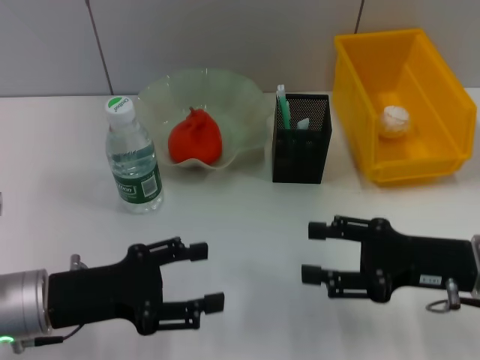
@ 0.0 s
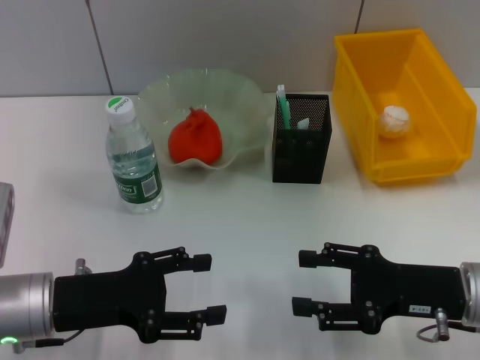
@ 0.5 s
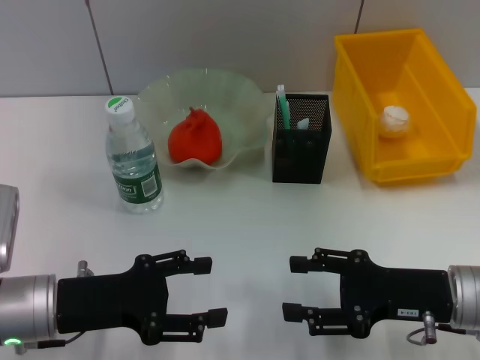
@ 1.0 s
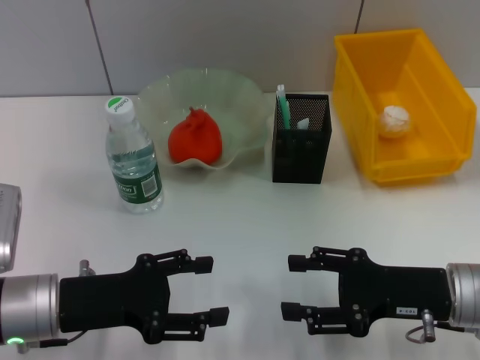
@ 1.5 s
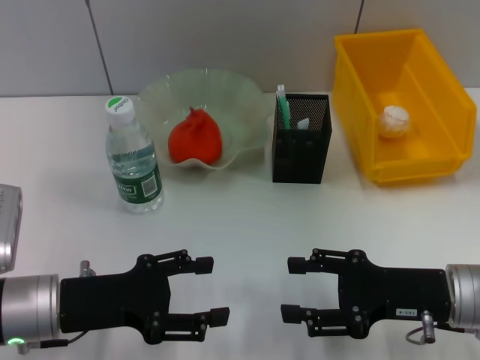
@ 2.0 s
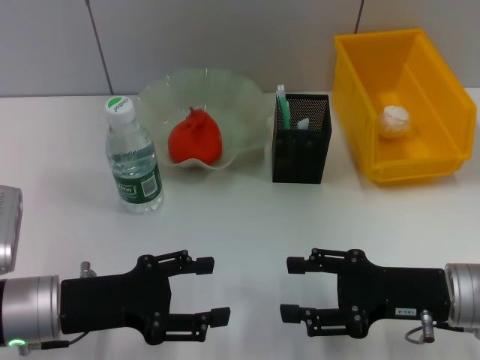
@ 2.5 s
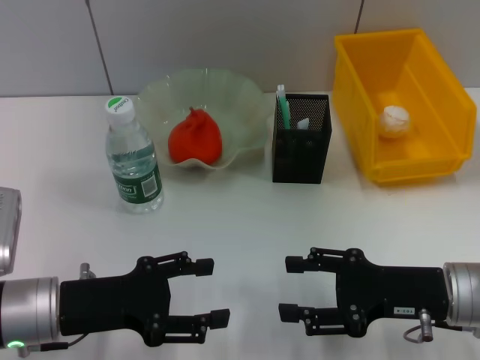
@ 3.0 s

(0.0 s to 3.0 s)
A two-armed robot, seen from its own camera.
0.0 s - 1.5 s: The grippers make only small movements.
1.5 s - 3.0 s: Neither gripper changes place.

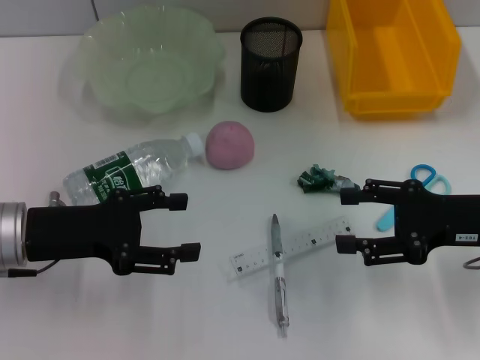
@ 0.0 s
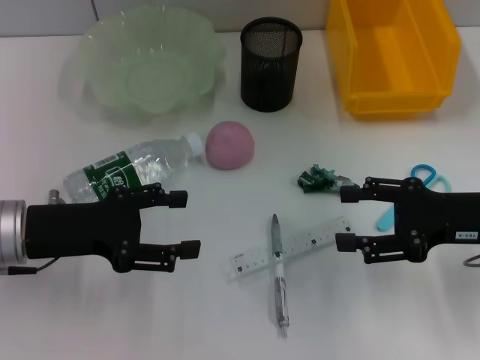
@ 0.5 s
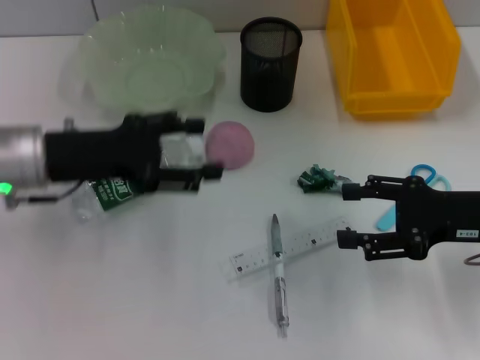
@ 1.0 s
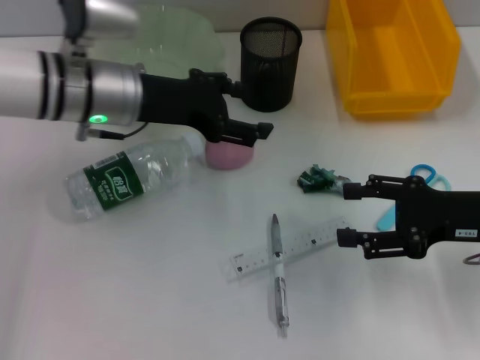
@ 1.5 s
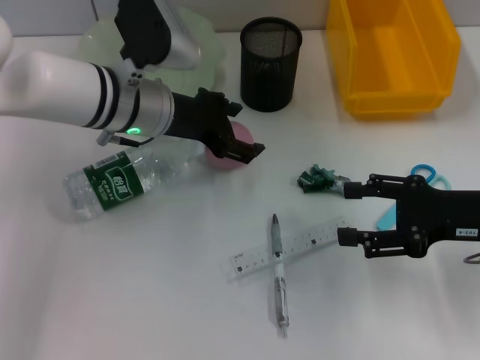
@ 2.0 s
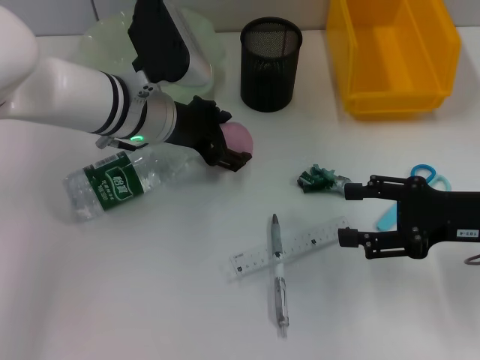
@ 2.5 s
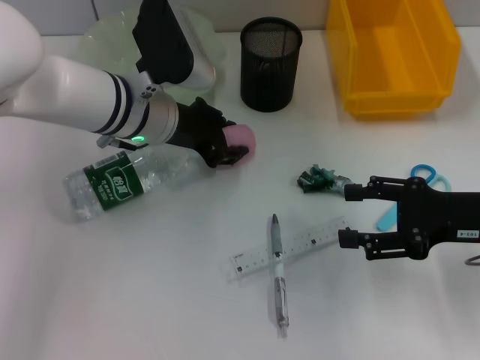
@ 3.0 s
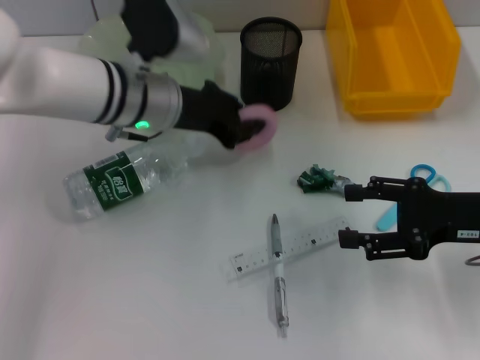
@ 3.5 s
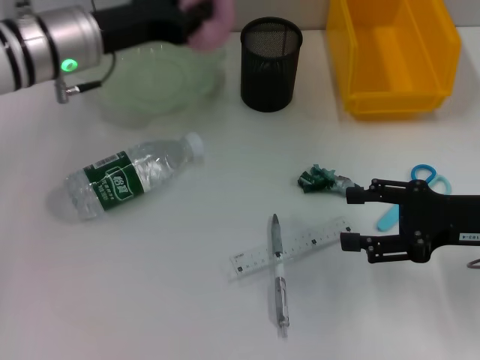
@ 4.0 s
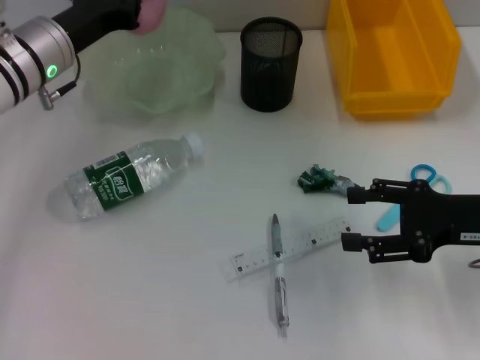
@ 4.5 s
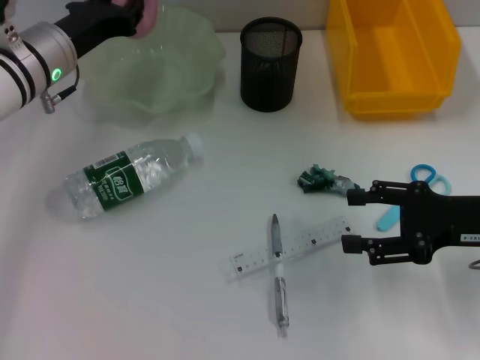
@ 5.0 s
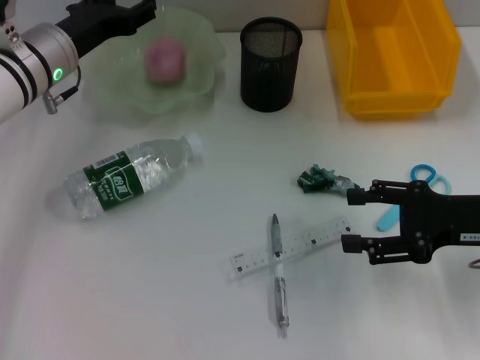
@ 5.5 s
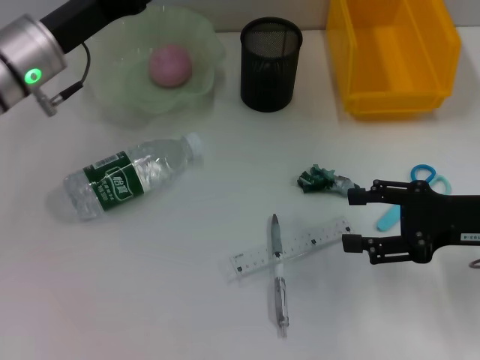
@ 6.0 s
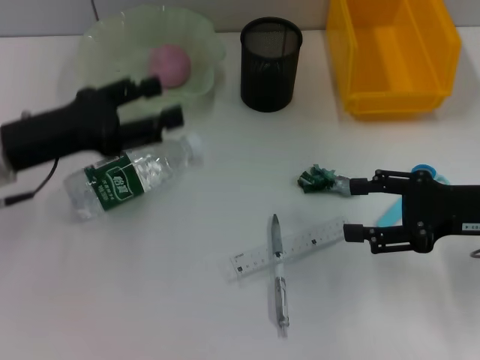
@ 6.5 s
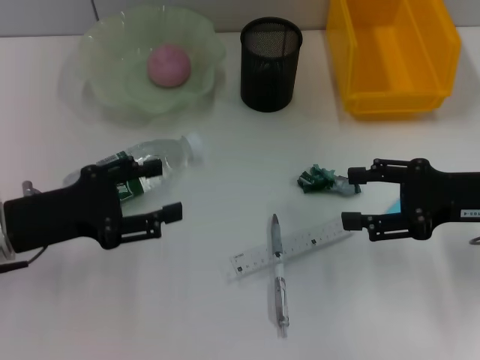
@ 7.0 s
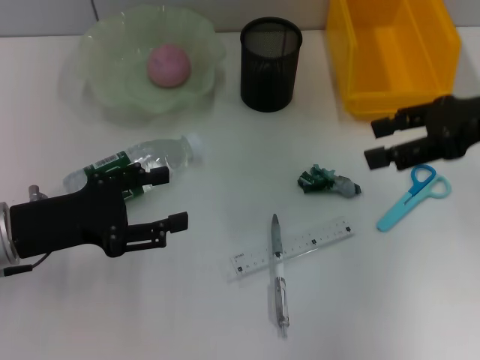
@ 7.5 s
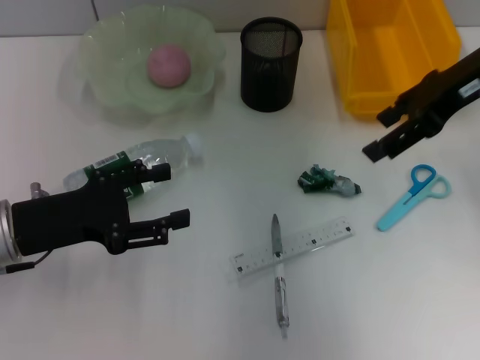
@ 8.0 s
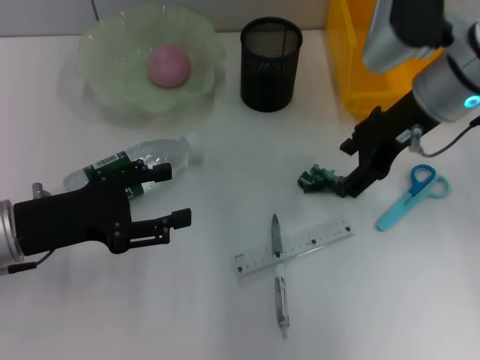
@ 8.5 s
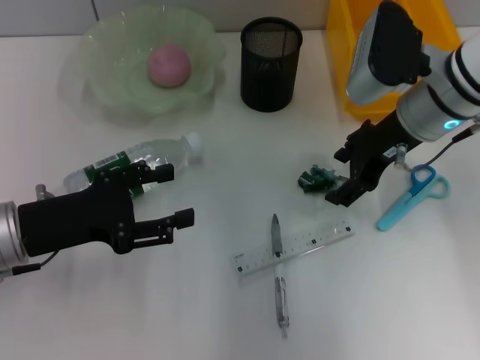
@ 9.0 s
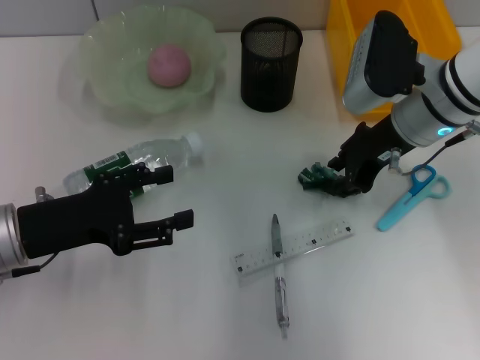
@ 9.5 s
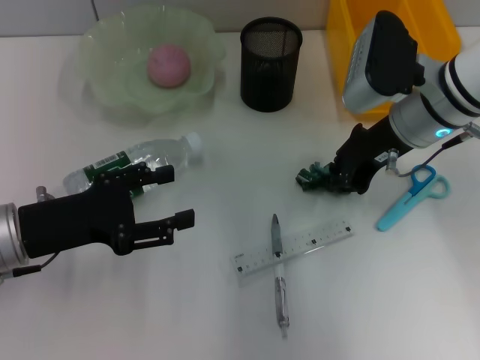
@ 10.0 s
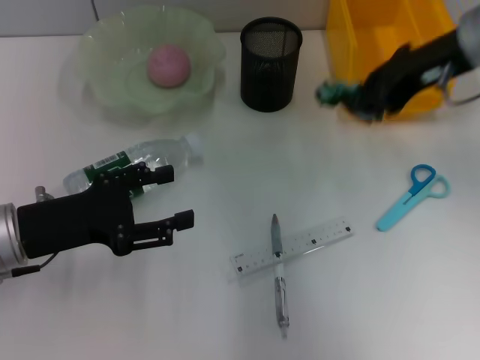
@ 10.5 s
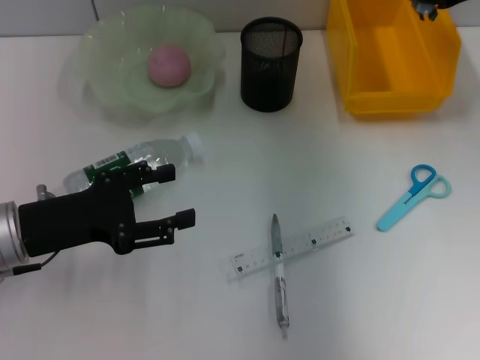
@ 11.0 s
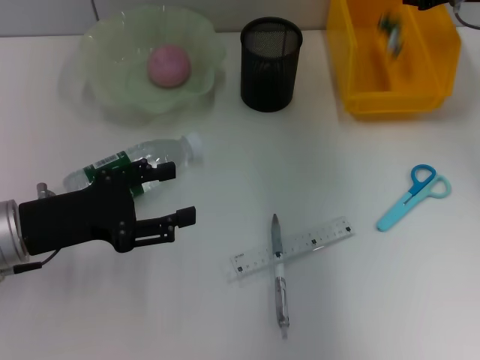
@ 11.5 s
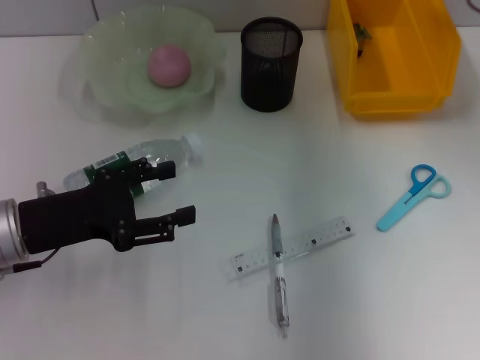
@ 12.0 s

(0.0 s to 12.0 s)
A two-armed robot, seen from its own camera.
Step, 0.0 s - 3.0 s: Grab the peach with the left hand.
Step, 3.5 s - 5.5 s: Place the peach into the fruit bowl with the left hand.
Step, 6.0 s - 9.5 s: Grab the plastic with the right hand.
Step, 10.0 s - 11.5 s: Place the plastic into the trash can with the right hand.
0.0 s - 2.0 s: The left gripper is displaced to the right and forward by about 20 cm.
2.0 s - 4.0 s: The left gripper goes roughly 5 cm to the left, and closes its fingers.
4.0 s - 6.0 s: The left gripper opens up.
6.0 s - 8.0 s: The left gripper goes roughly 15 cm backward and downward; the right gripper goes some 20 cm upward and forward.
8.0 s - 10.0 s: The right gripper moves downward and to the left, about 10 cm, and closes its fingers.
10.0 s - 12.0 s: The right gripper is displaced to the right, upward and forward by approximately 15 cm, and opens up.

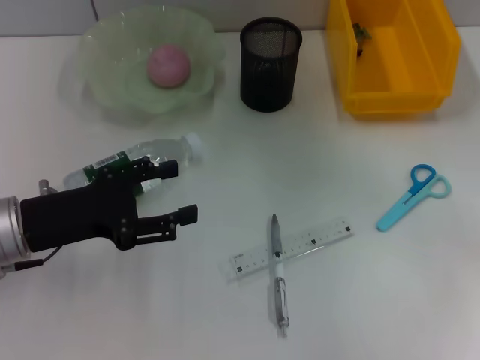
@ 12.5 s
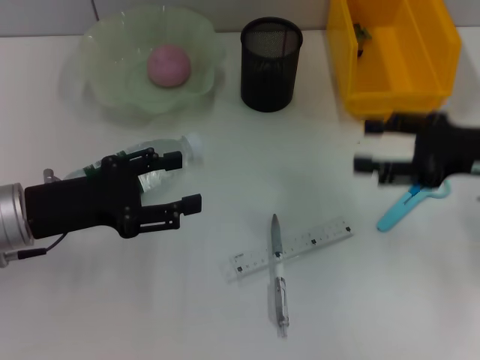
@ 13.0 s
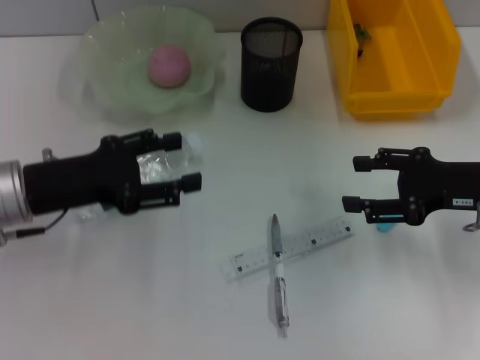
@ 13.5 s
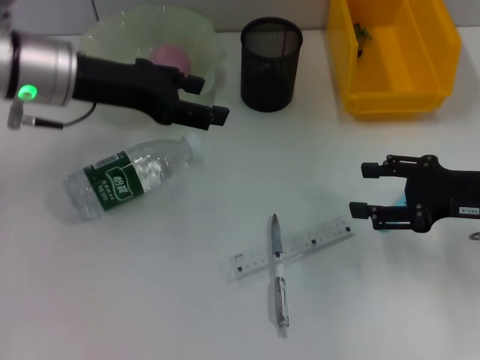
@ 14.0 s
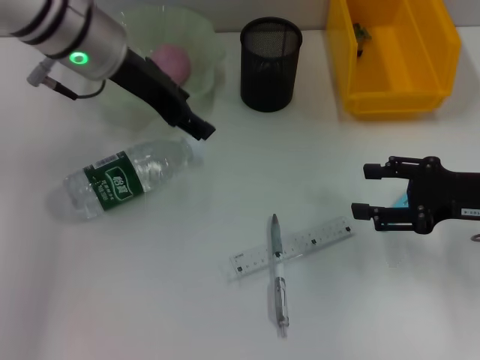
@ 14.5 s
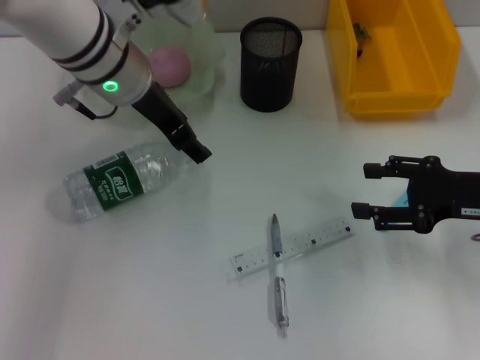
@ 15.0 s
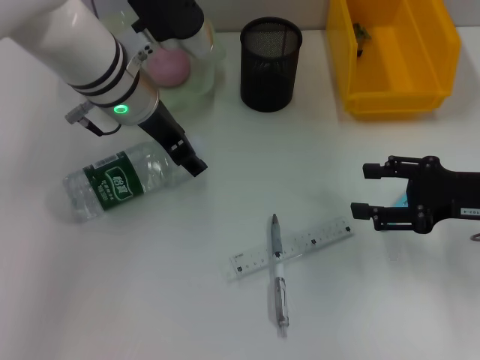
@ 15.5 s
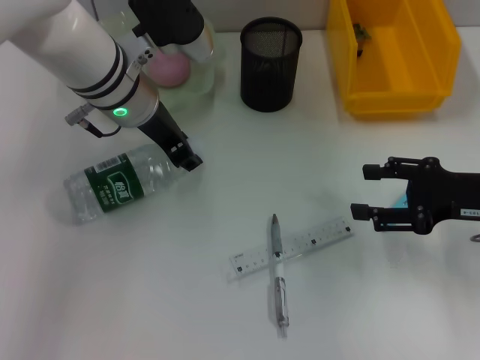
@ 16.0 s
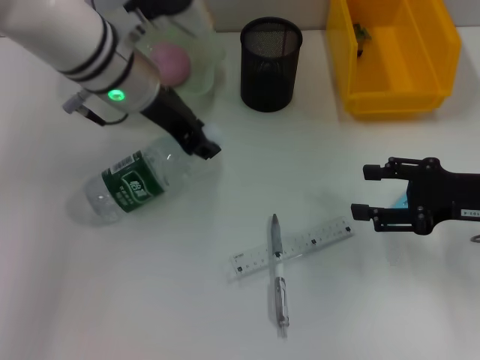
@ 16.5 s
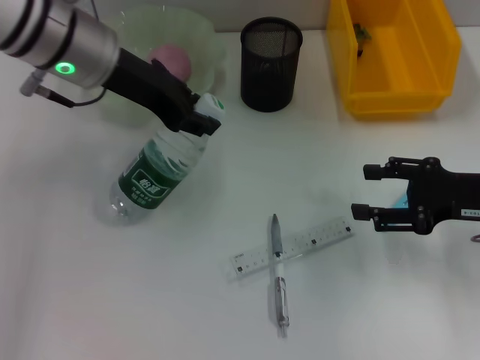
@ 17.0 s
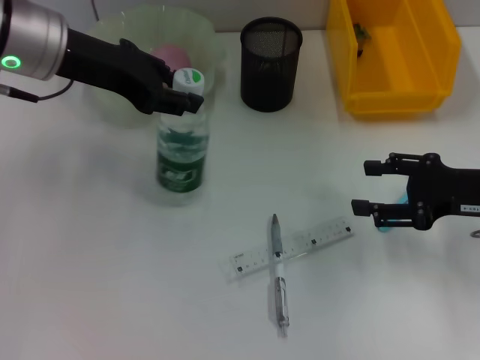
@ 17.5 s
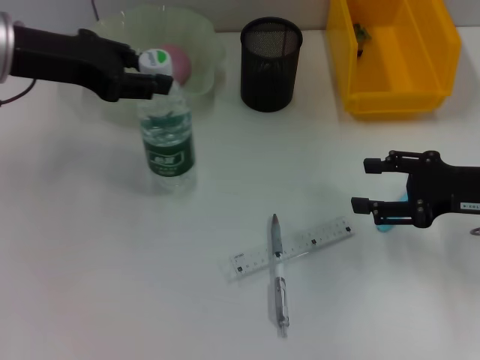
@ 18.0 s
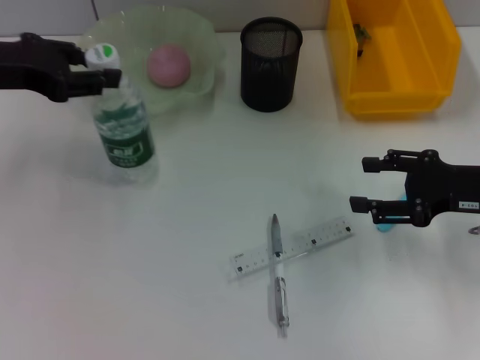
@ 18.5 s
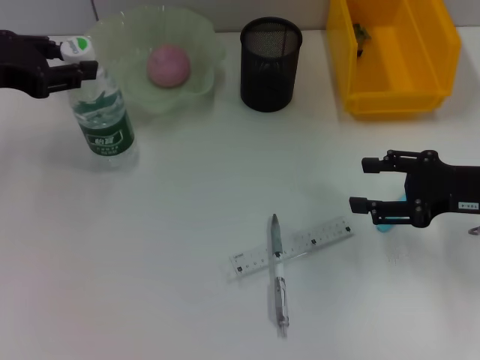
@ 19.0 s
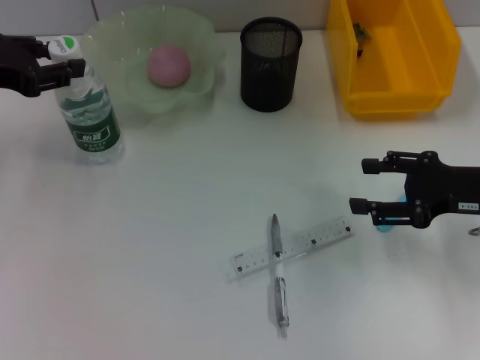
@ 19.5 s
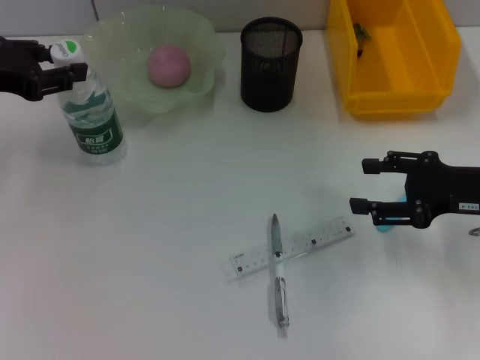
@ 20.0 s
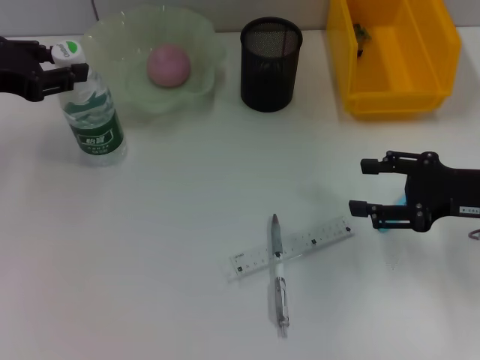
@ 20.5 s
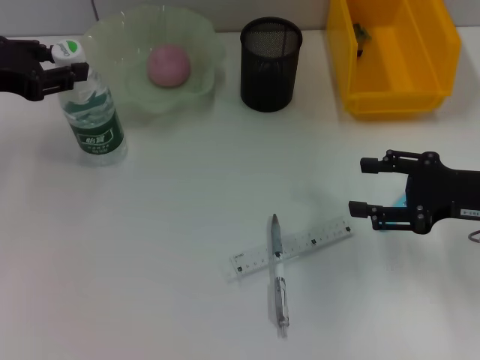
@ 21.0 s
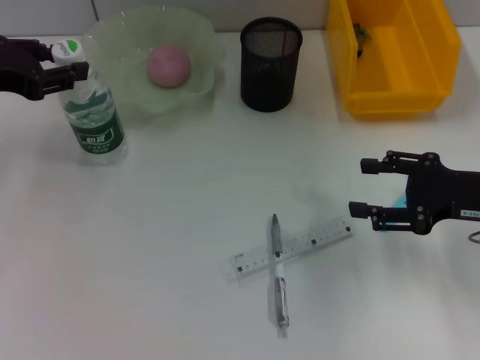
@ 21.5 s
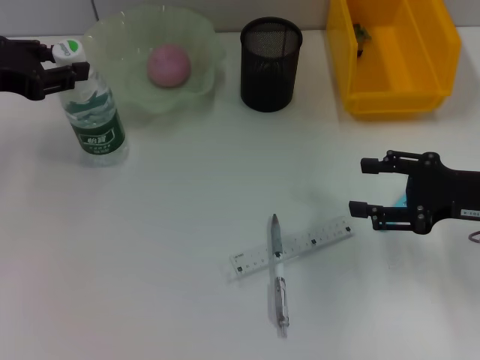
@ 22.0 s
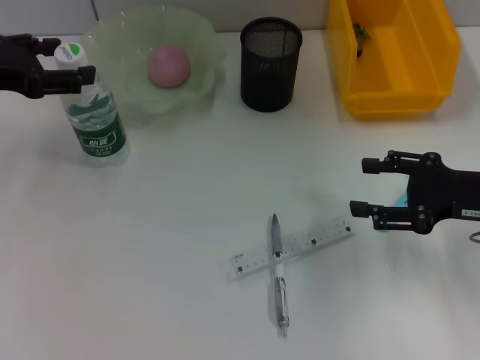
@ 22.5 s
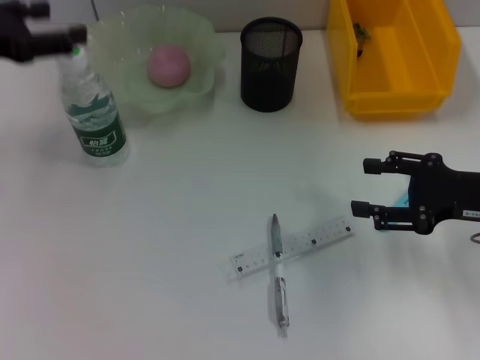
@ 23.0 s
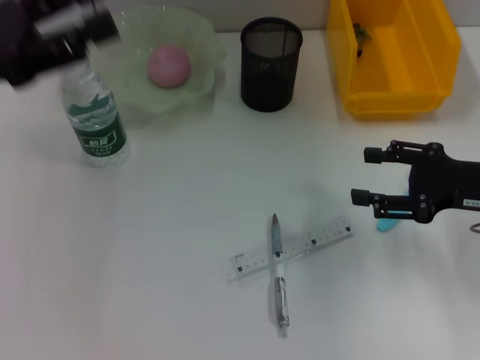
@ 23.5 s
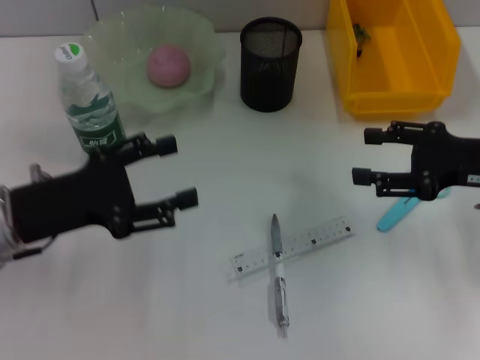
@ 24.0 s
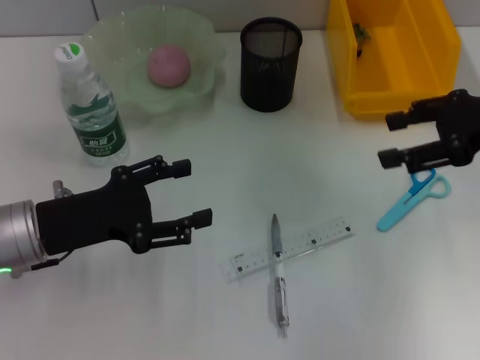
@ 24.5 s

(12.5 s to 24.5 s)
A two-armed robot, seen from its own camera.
Step, 12.5 s - 15.5 s: Grab the water bottle with the left hand.
Step, 16.5 s - 22.5 s: Place the water bottle on the table with the left hand.
12.5 s - 14.5 s: The left gripper moves forward, upward and to the right, roughly 20 cm; the right gripper heads downward and backward, covering about 15 cm.
14.5 s - 16.5 s: The left gripper closes up.
16.5 s - 18.5 s: The left gripper goes about 15 cm to the left.
18.5 s - 20.5 s: The grippers make only small movements.
20.5 s - 22.5 s: Neither gripper changes place.
22.5 s - 24.5 s: The right gripper heads upward and forward, covering roughly 10 cm, while the left gripper heads downward, backward and to the right, covering approximately 15 cm.
